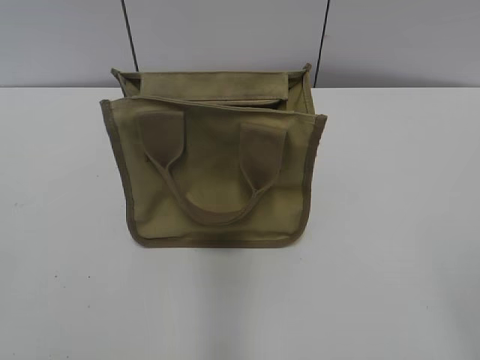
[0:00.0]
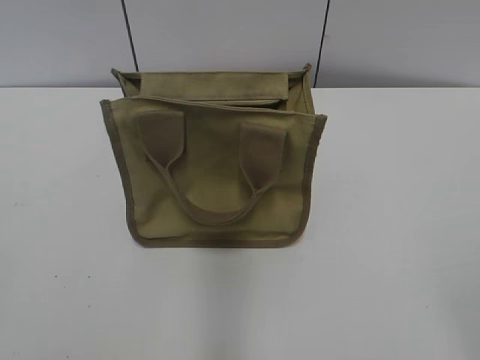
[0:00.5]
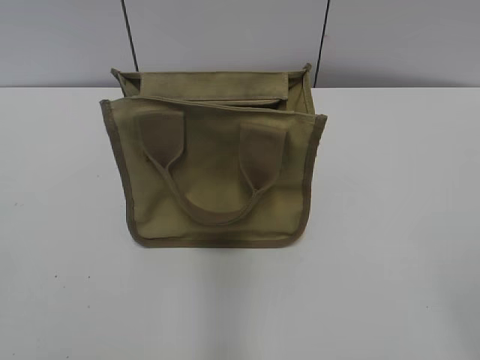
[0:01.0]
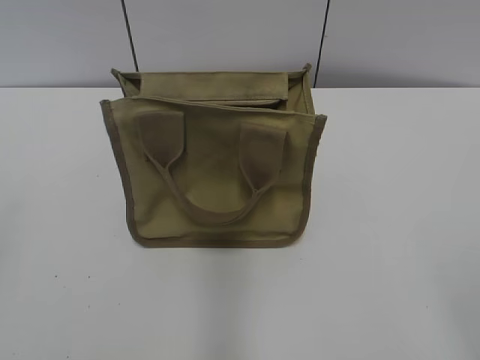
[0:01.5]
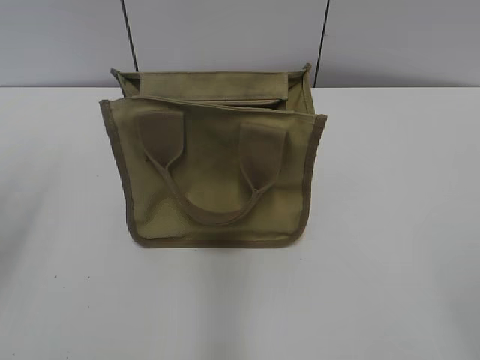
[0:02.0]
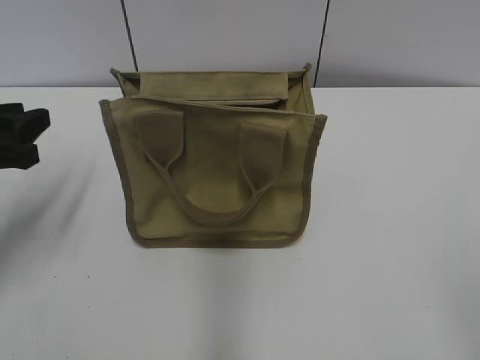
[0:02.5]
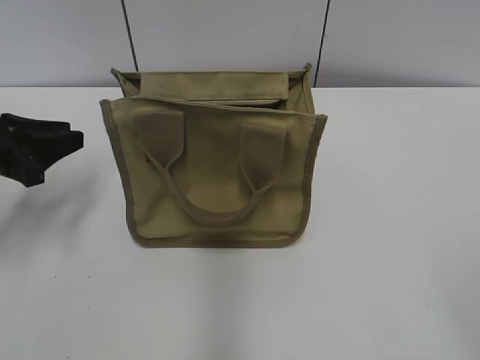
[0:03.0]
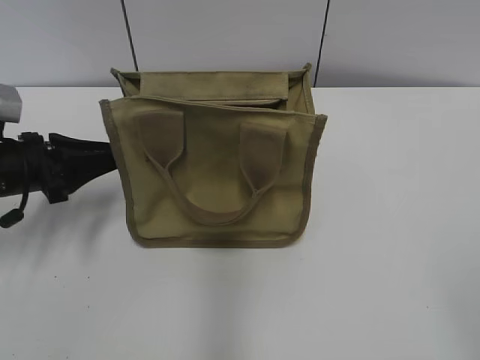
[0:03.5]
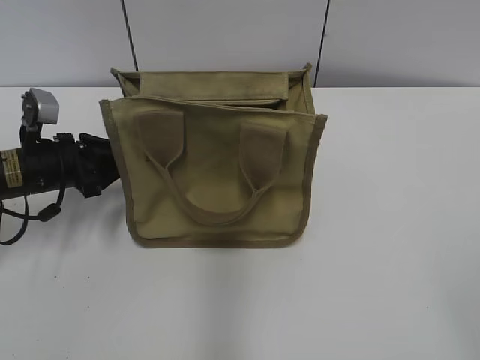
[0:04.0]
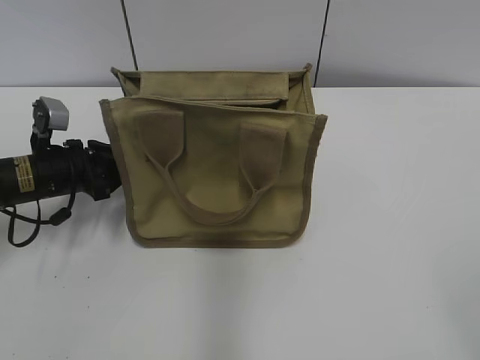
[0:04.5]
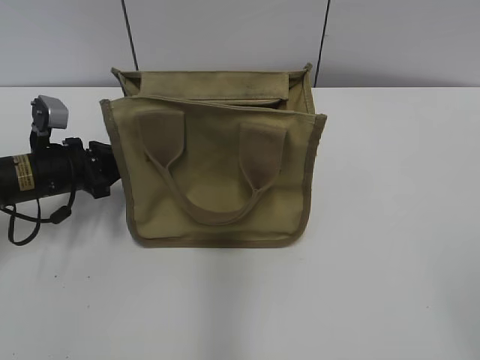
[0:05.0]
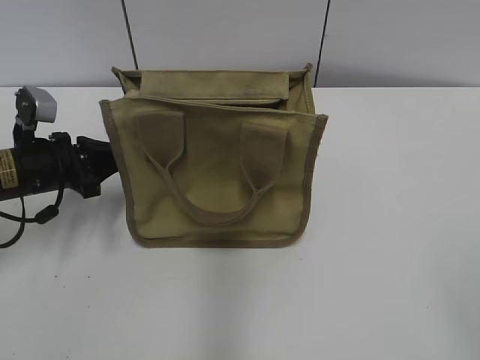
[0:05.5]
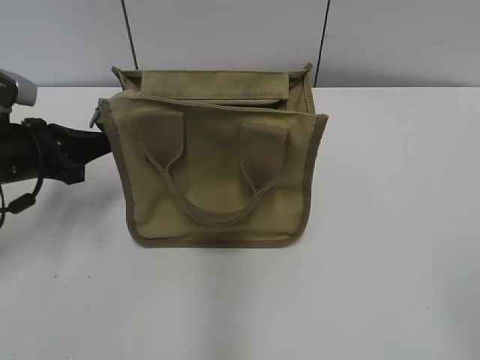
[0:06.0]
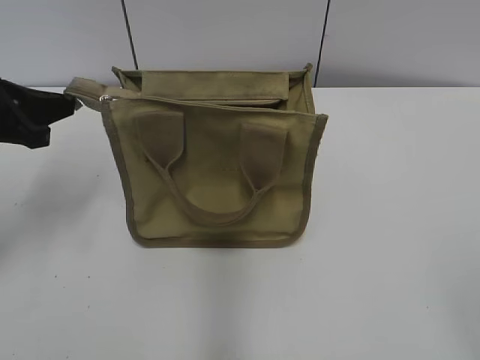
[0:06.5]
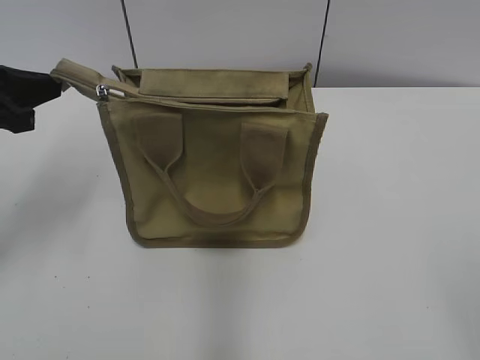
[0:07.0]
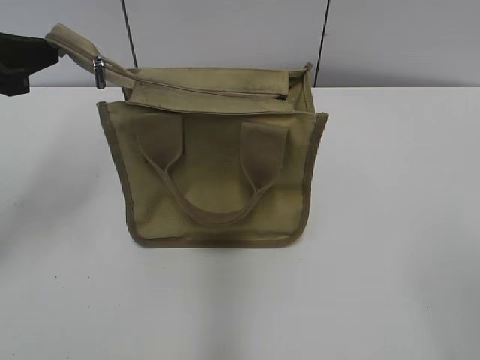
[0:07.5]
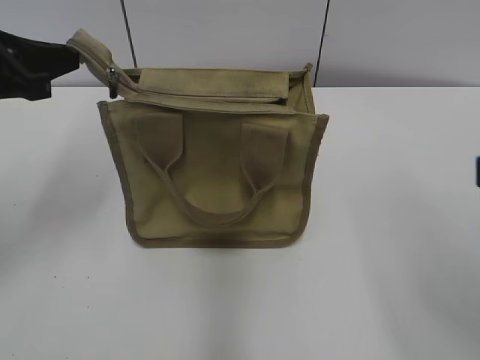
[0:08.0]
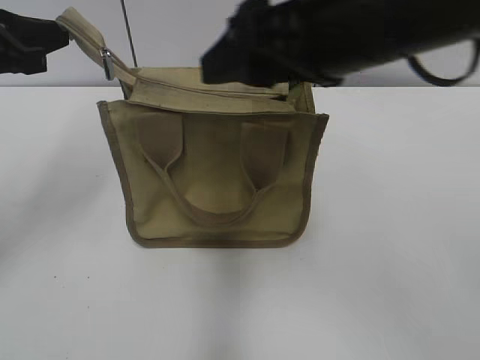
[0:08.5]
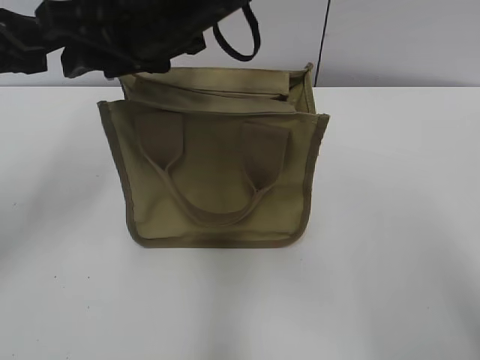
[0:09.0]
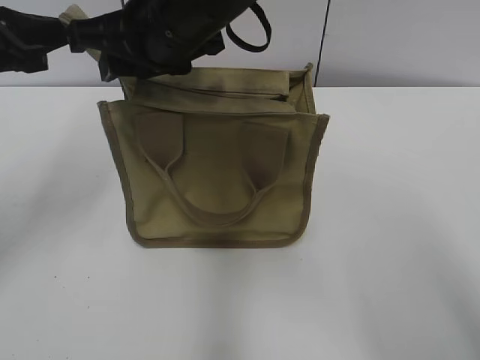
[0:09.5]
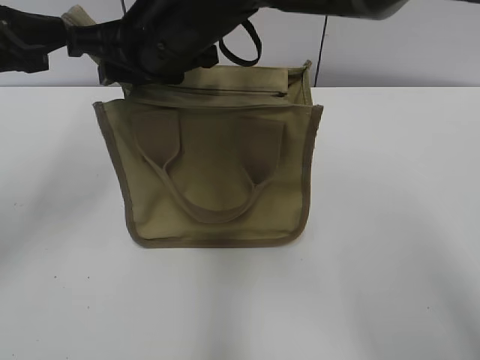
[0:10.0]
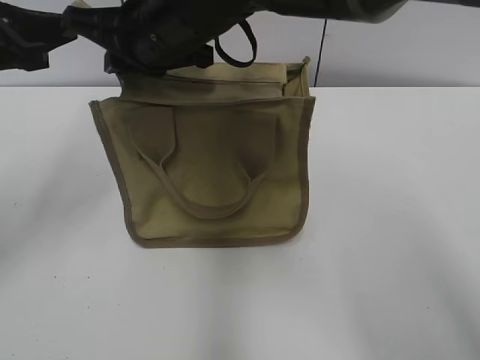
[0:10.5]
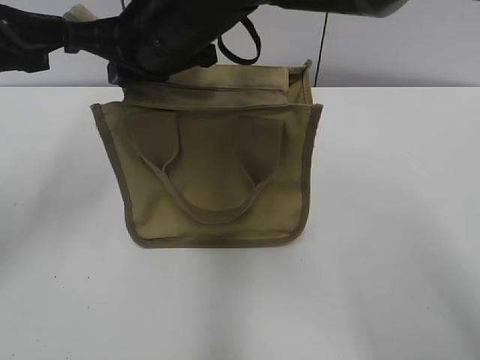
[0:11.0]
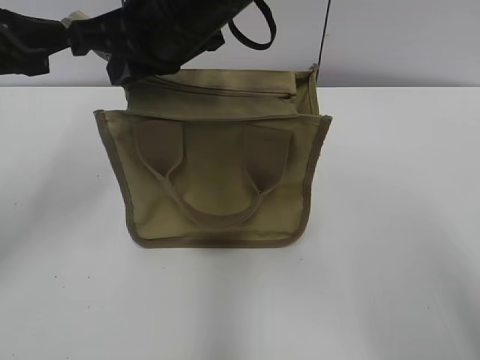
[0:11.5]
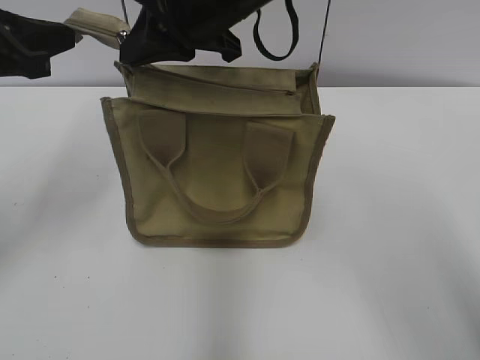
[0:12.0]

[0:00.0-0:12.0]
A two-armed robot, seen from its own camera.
0:02.0 to 0:04.0: The left gripper travels downward and forward by roughly 25 cm.
0:04.0 to 0:06.0: The left gripper changes place by approximately 5 cm, and closes up.
0:06.0 to 0:08.0: The right gripper goes about 10 cm forward; the left gripper moves upward, some 10 cm.
0:08.0 to 0:10.0: The right gripper shifts some 35 cm to the left and forward, and closes its fingers.
0:10.0 to 0:12.0: The right gripper moves some 5 cm, and closes its fingers.

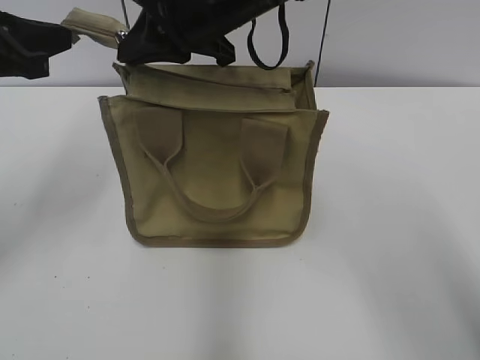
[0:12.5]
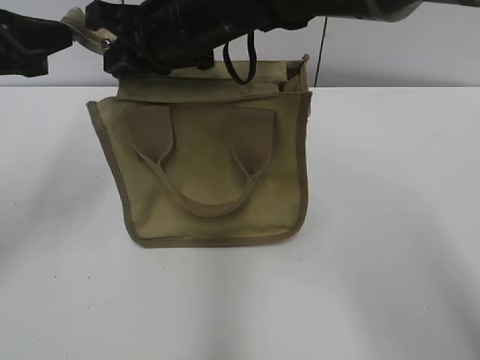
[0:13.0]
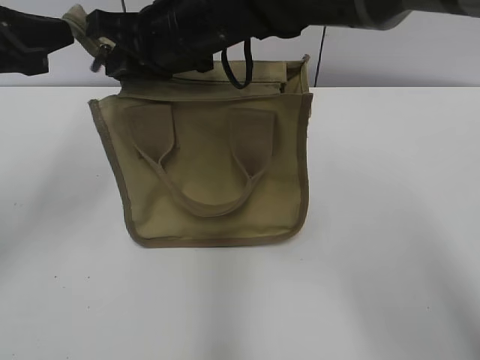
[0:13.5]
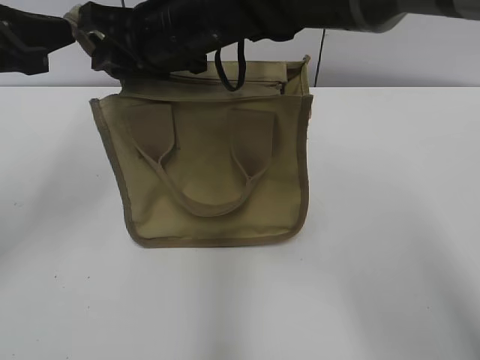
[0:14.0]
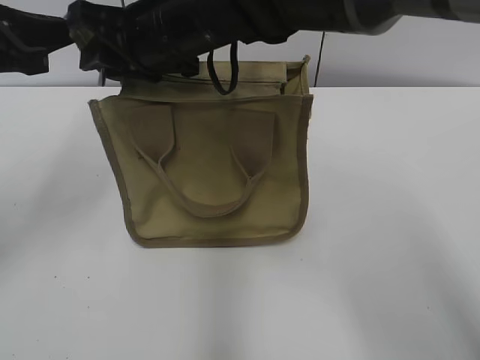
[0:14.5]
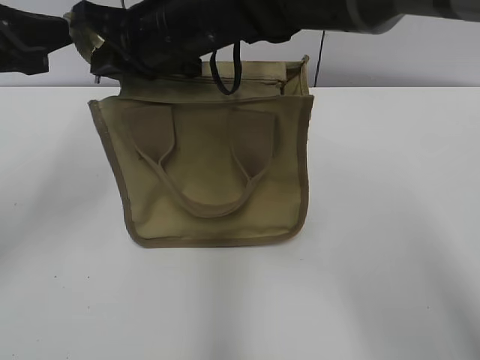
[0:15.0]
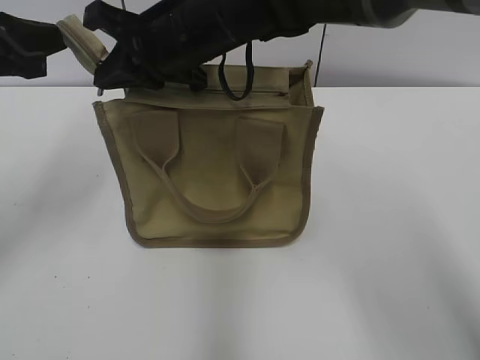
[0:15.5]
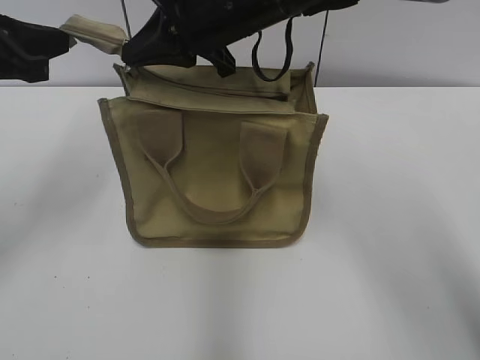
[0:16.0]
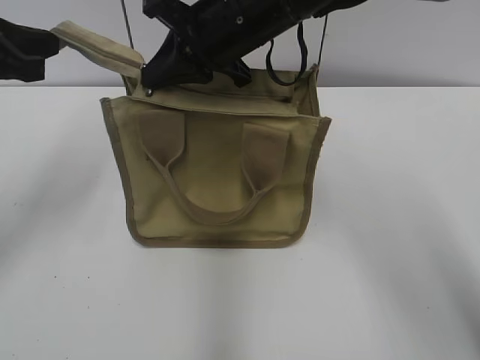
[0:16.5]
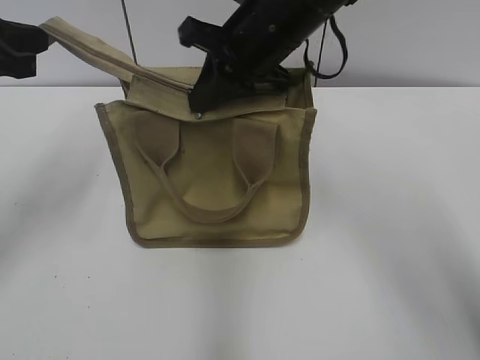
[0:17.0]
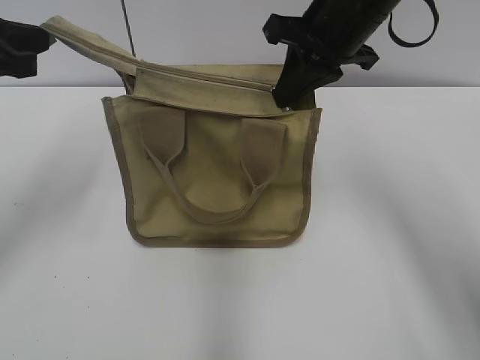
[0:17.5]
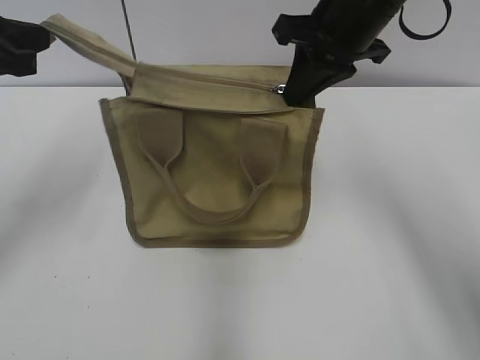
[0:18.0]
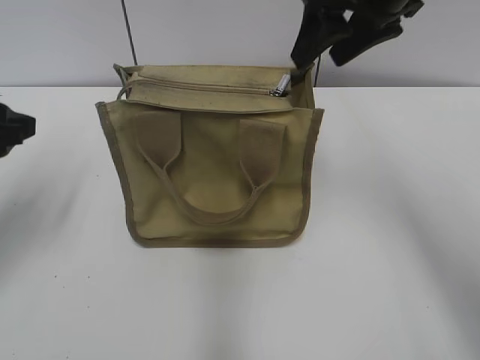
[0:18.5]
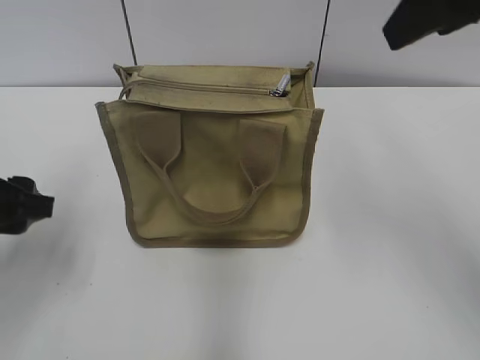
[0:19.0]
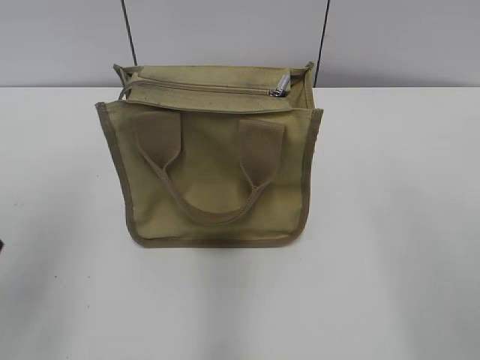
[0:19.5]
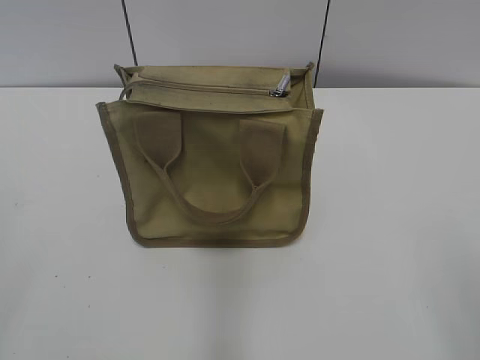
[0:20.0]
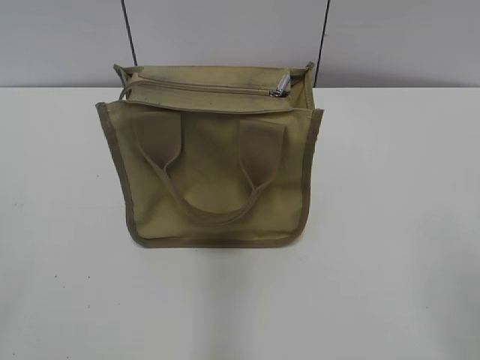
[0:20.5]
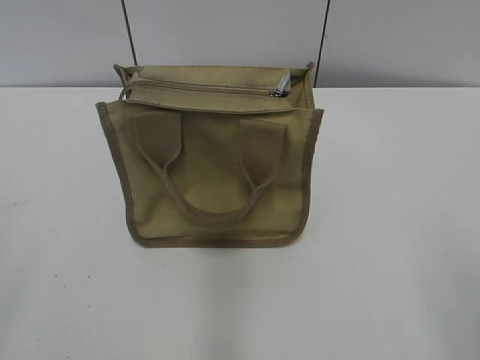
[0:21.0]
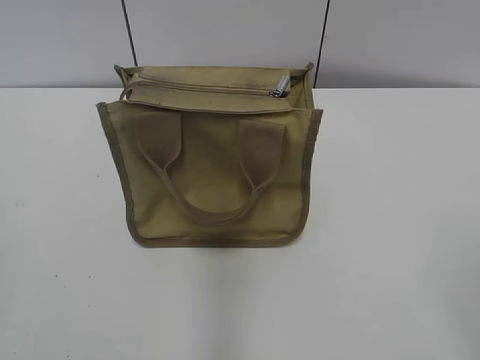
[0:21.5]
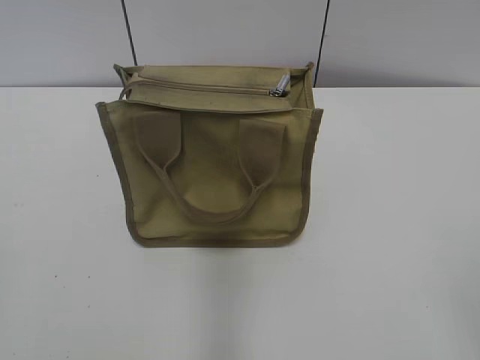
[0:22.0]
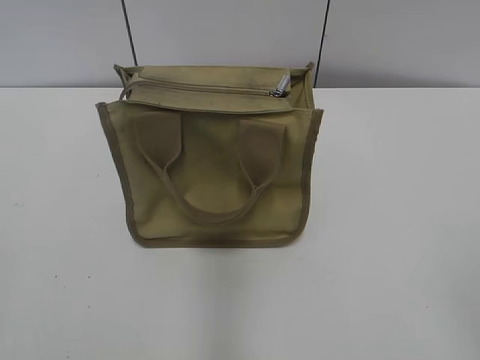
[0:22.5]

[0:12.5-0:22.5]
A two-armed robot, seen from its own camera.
Step, 0:12.5 to 0:18.0: Zip up the bag with your right hand.
0:12.5 to 0:14.5: The right gripper shifts by roughly 5 cm, and opens up.
0:14.5 to 0:16.5: The right gripper shifts roughly 5 cm to the right, and closes its fingers.
0:16.5 to 0:18.5: The right gripper goes approximately 15 cm to the right and upward, and opens its fingers; the left gripper travels downward by about 5 cm, and opens its fingers.
0:18.5 to 0:20.5: Both grippers travel together backward, about 30 cm.

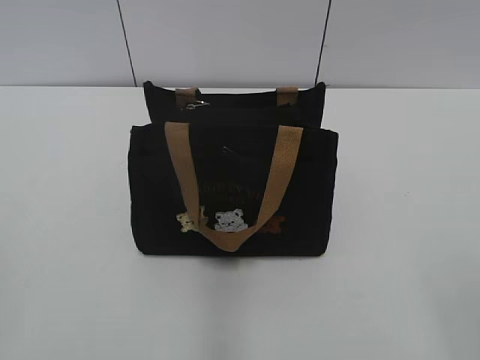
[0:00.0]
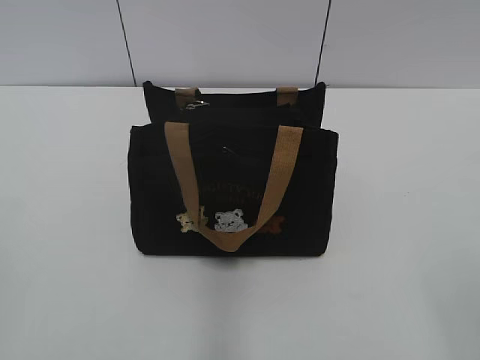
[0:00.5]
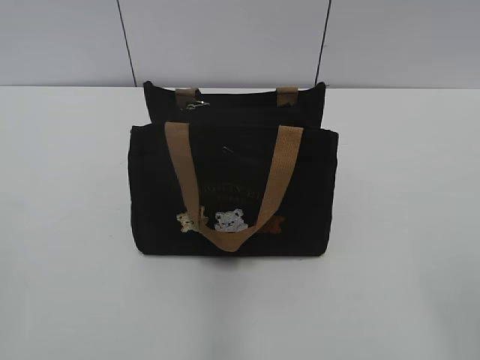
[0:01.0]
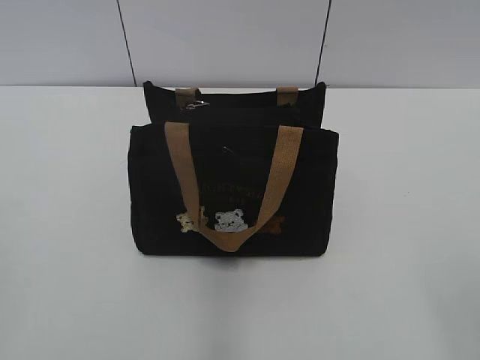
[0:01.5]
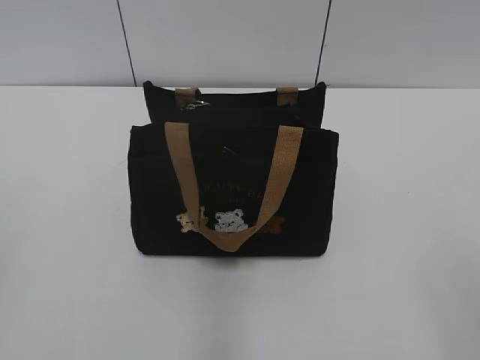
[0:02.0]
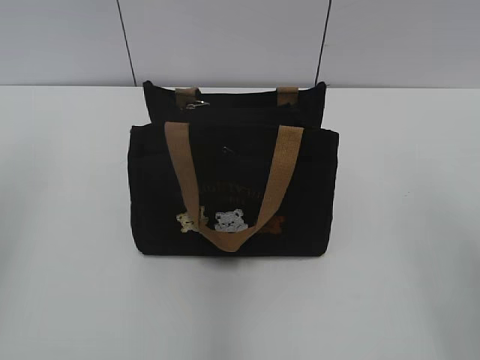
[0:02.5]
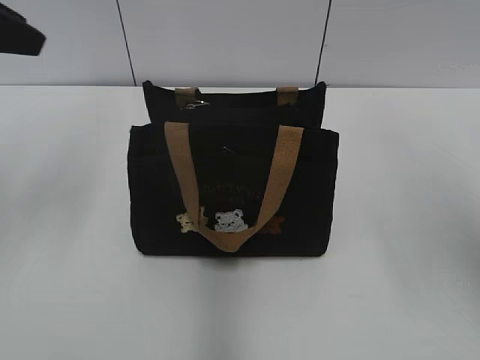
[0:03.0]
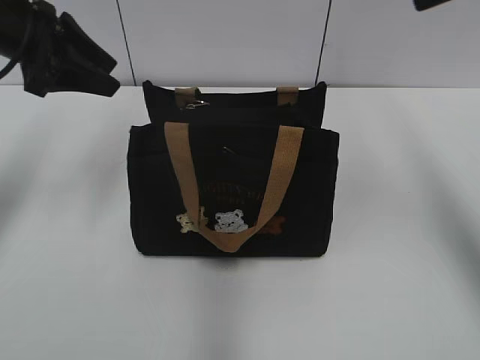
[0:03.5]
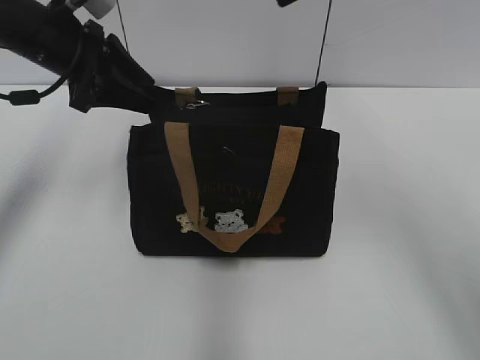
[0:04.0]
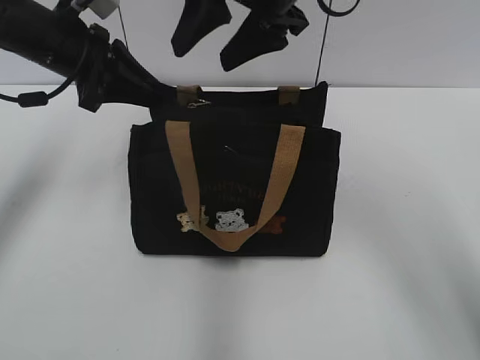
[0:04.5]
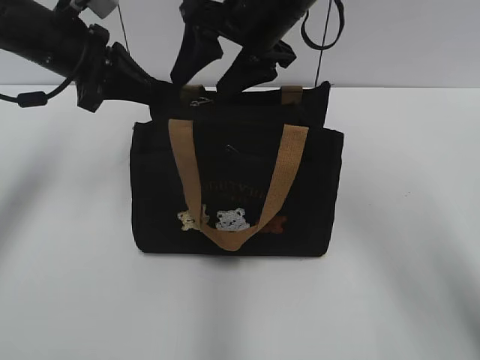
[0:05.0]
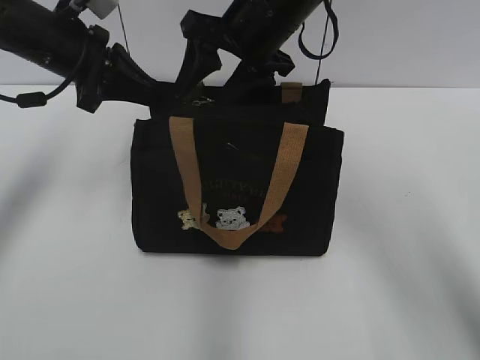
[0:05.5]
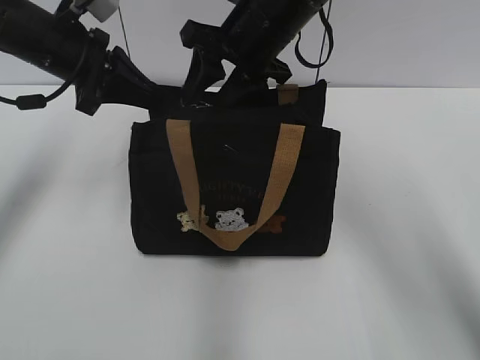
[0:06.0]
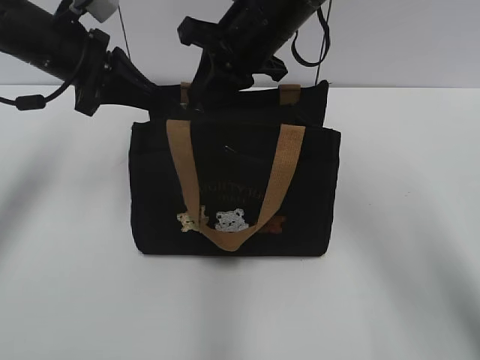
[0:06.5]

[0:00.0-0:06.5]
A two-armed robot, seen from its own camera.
0:02.0 to 0:04.5: The right gripper heads forward and to the left, covering some 40 cm. Meanwhile the left gripper goes approximately 40 cm forward.
0:04.5 to 0:06.5: The left gripper closes its fingers; the right gripper is displaced downward by about 5 cm, and closes up.
